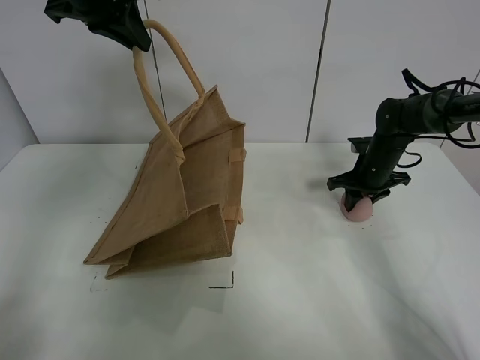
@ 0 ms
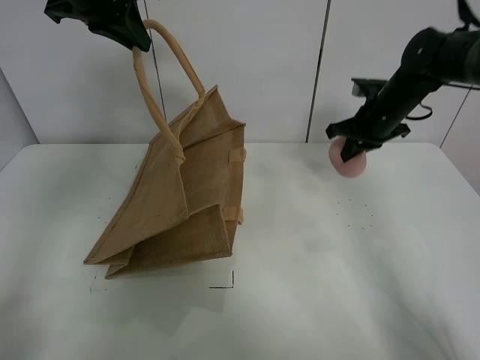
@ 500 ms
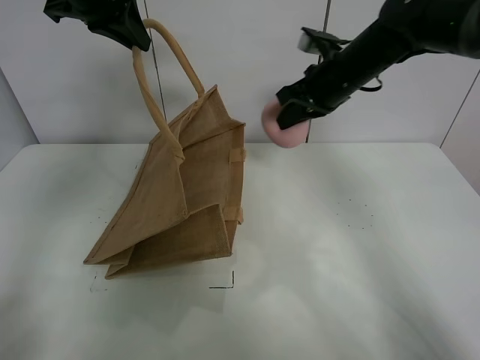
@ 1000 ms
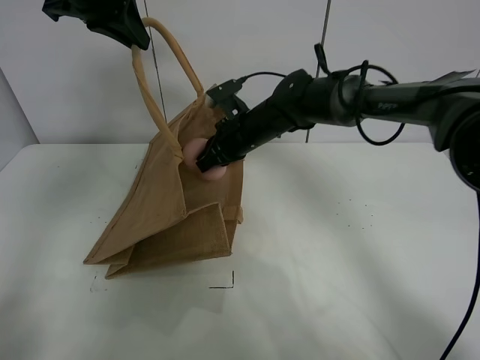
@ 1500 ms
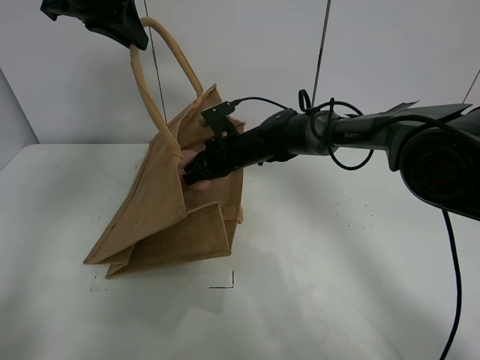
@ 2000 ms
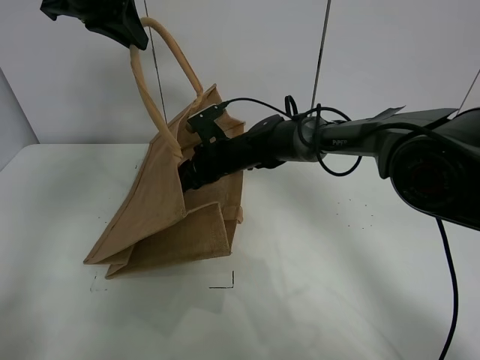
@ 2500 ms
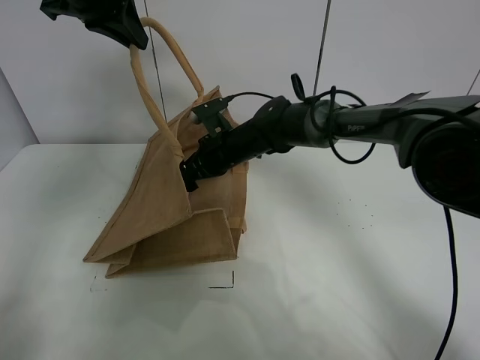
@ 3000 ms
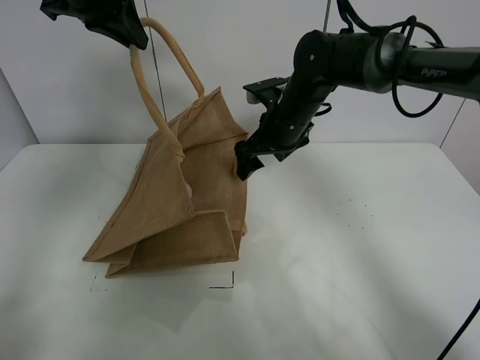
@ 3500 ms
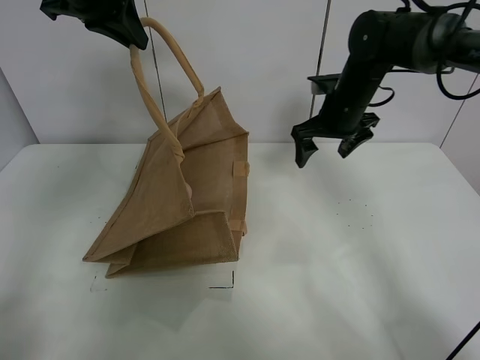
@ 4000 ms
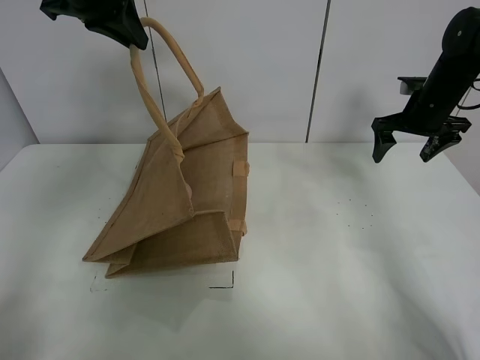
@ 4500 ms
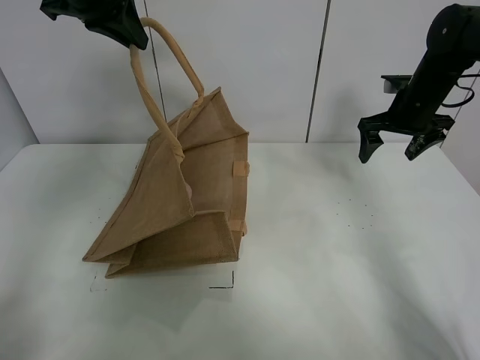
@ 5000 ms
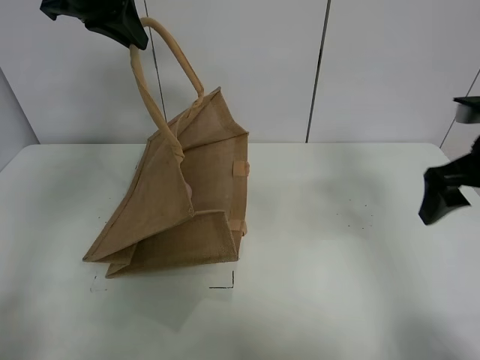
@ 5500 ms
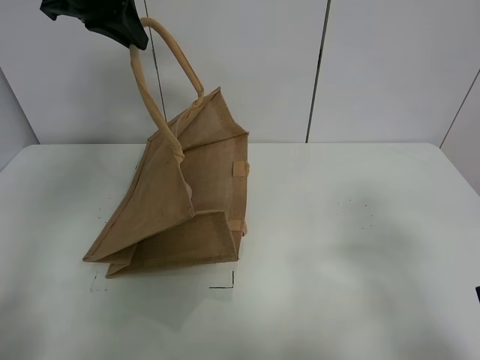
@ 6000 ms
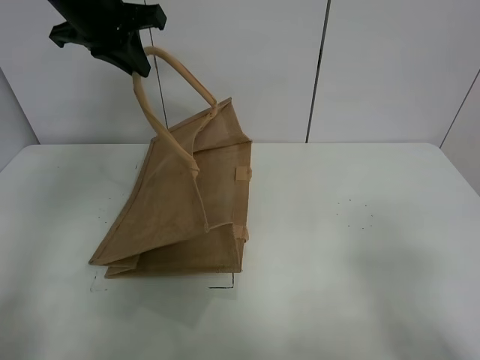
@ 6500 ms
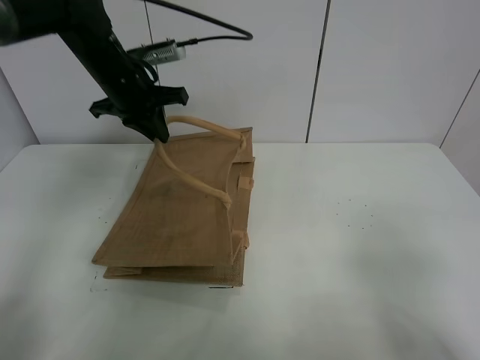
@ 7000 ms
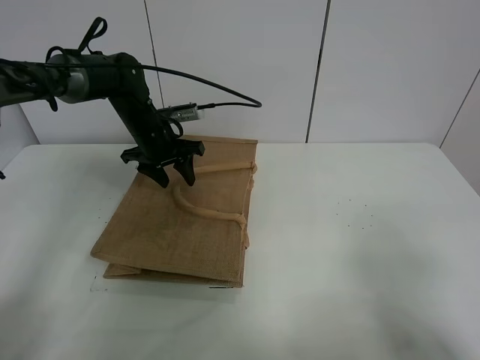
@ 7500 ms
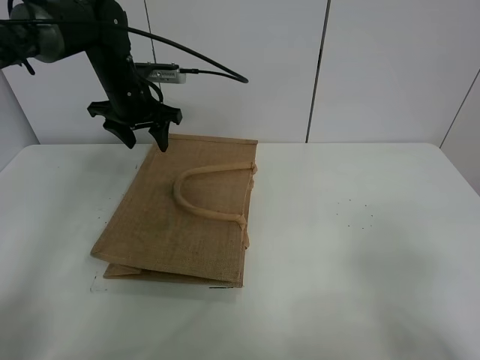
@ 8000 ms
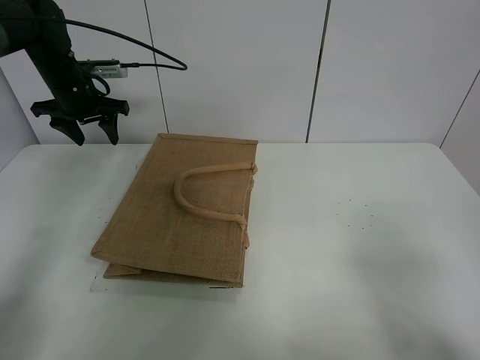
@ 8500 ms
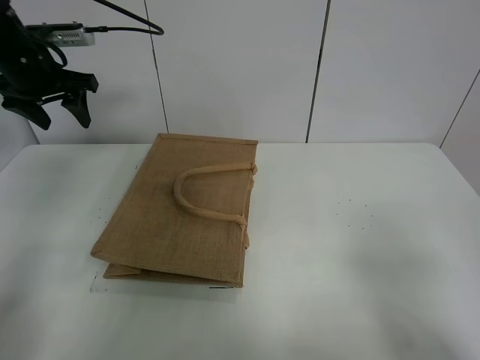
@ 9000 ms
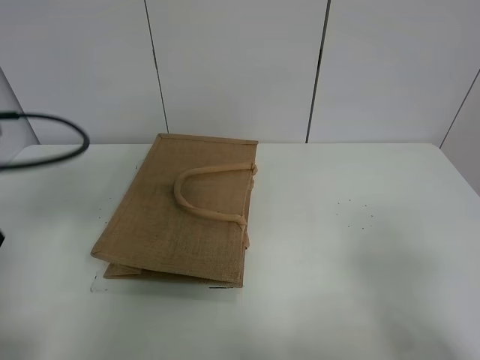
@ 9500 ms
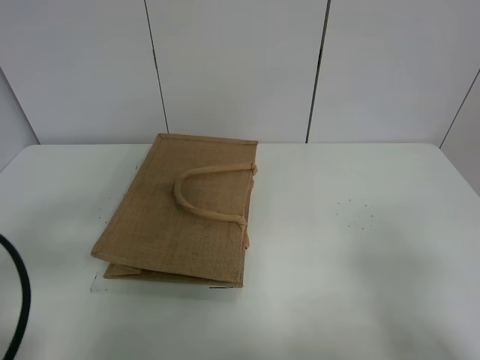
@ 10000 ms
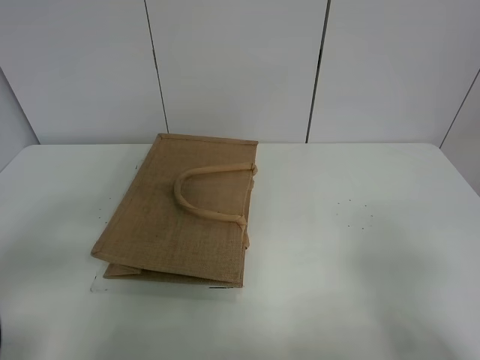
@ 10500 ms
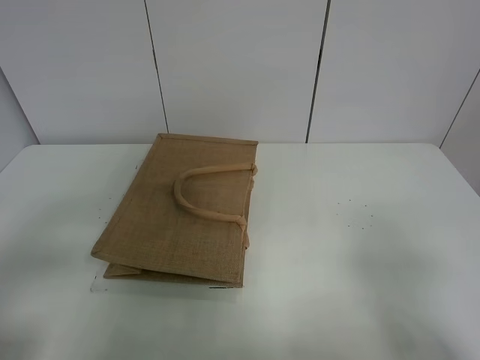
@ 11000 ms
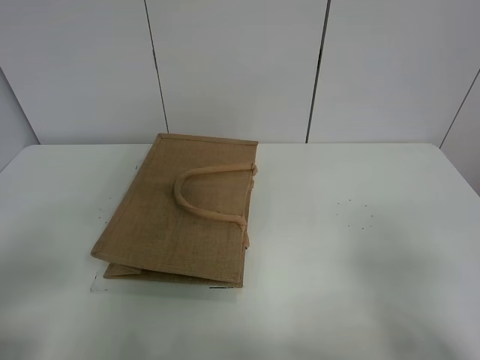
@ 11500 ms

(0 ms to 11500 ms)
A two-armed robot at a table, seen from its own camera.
Task of the whole recording: open the brown linen bag and put the peach in the bag.
Step, 500 ms - 3500 ms: Place the peach in the handbag with right gripper.
Step, 4000 ms - 8000 ms: Put down the handbag with left grippe.
0 ms - 2000 ms: The right gripper is displaced to the left by some 25 cm.
2000 ms - 4000 ms: The right gripper shifts approximately 20 cm to the right and upward, and opens its fingers.
4000 ms - 6000 ms: The right gripper heads backward, covering approximately 35 cm.
6000 ms - 7500 ms: The right gripper moves backward, roughly 5 cm. Meanwhile the left gripper goes roughly 25 cm downward, and opens its fingers.
7500 ms - 9500 ms: The left gripper travels backward, to the left and upward by about 35 cm.
9500 ms - 11500 ms: The left gripper heads backward, covering some 20 cm.

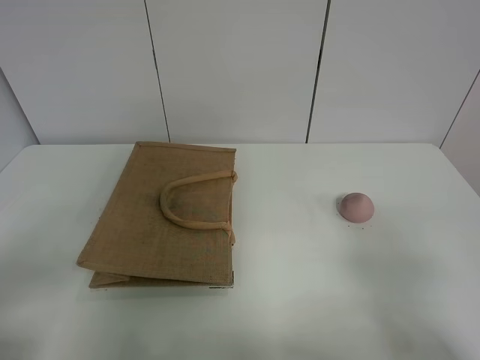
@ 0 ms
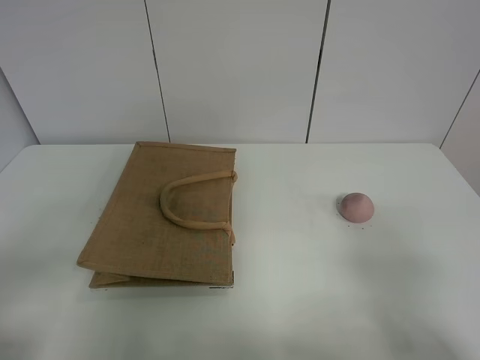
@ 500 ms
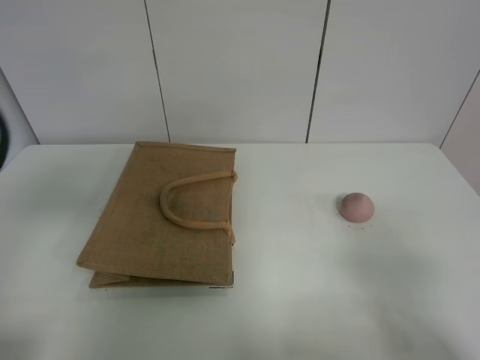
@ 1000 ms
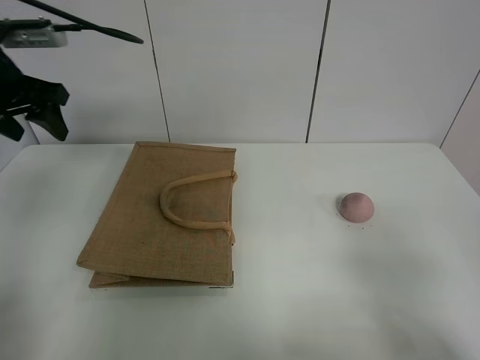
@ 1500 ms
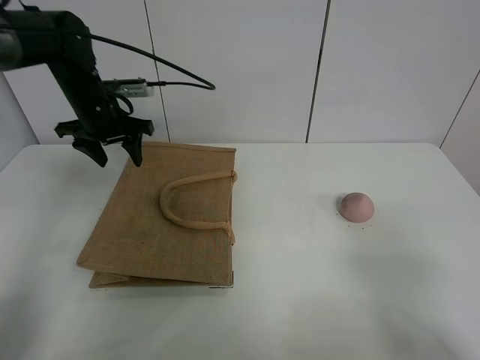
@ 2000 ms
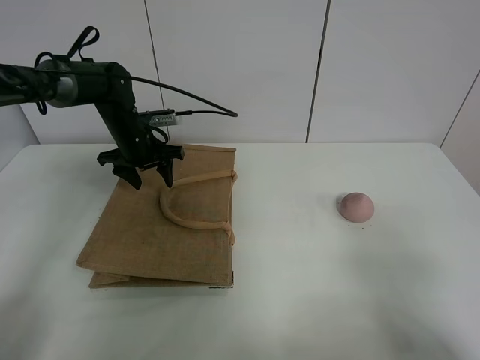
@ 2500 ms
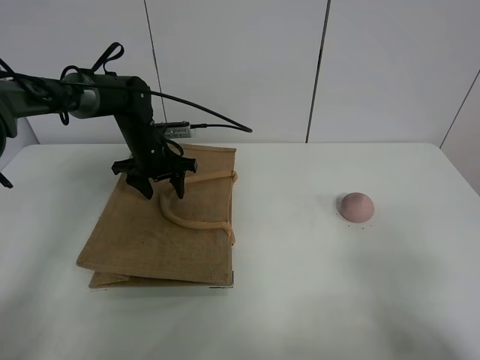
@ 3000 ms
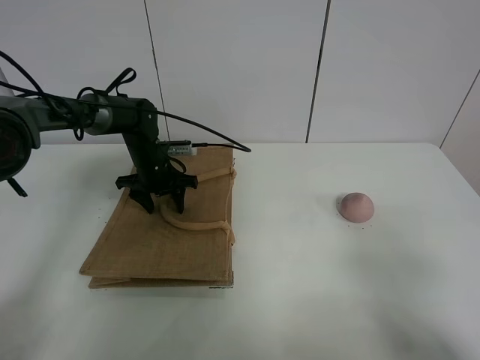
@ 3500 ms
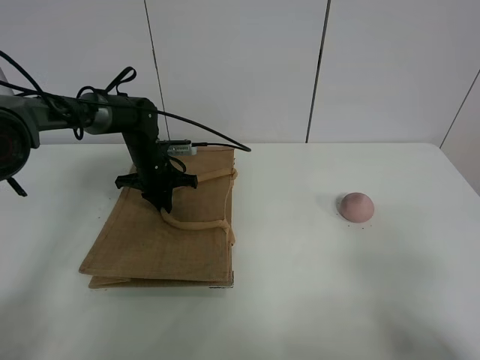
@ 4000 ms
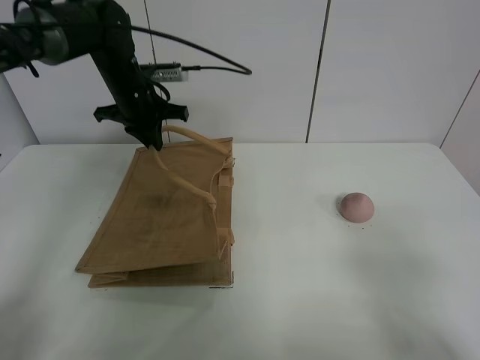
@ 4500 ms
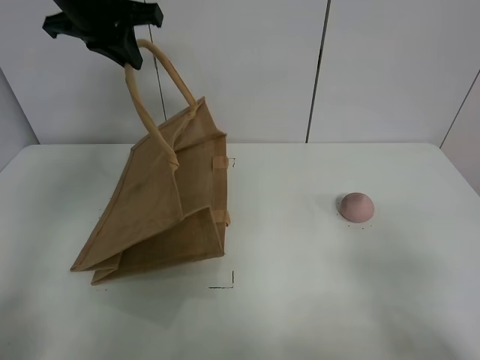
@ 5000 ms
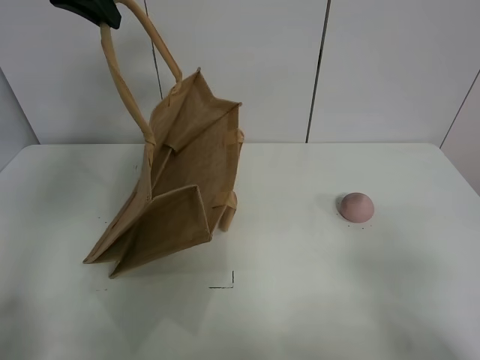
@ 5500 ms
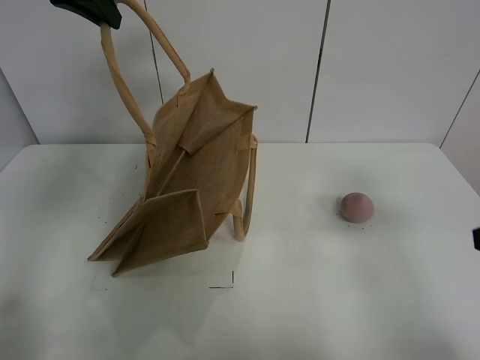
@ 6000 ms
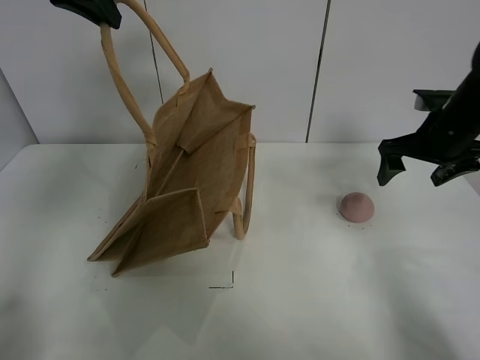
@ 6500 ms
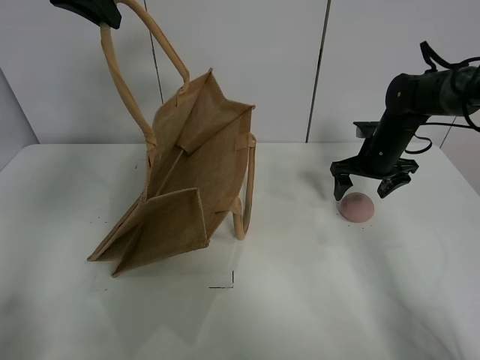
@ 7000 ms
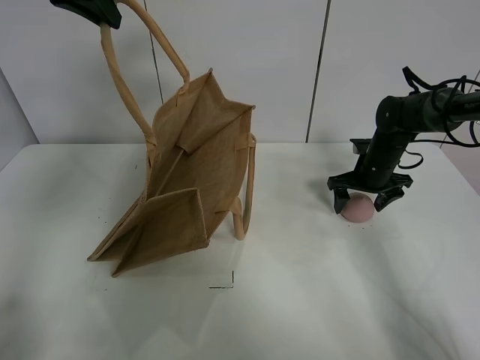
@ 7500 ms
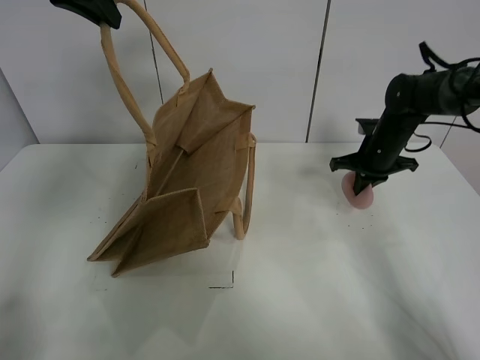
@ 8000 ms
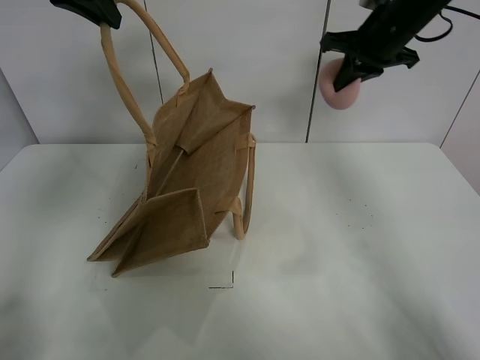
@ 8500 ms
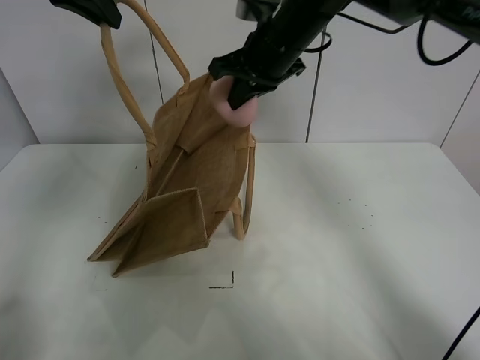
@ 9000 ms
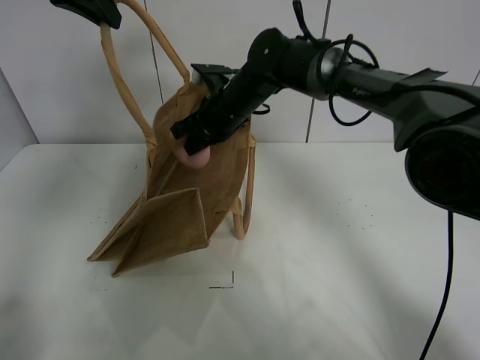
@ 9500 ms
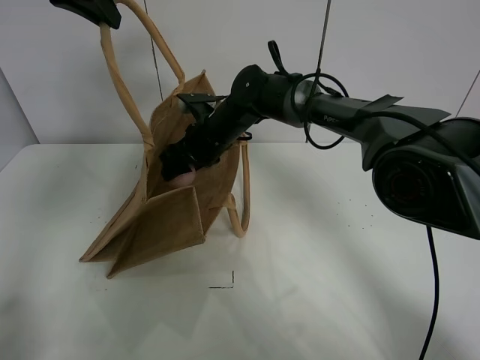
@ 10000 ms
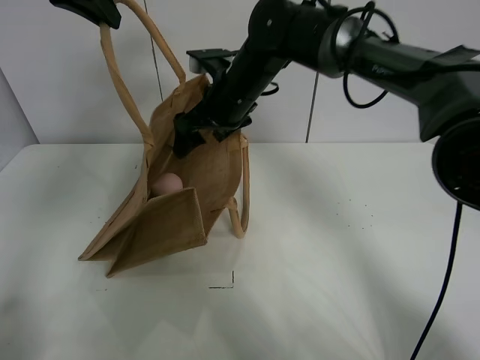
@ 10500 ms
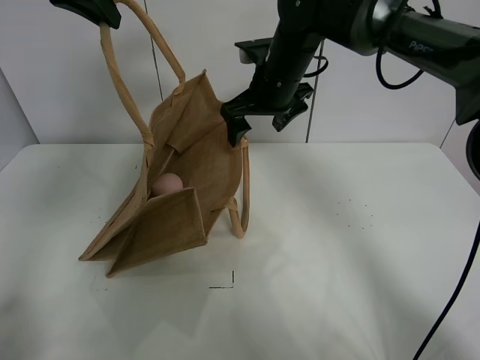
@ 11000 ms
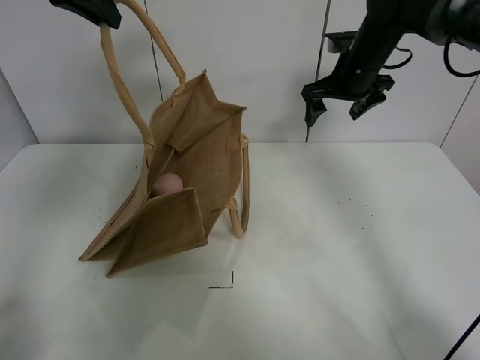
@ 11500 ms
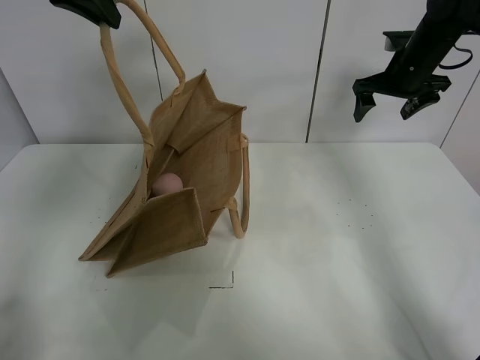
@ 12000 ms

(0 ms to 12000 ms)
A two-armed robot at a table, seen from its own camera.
Task of the whole recording: open the brown linen bag and put the peach in the bag.
Step, 0 ms - 5000 ms: Lift the handbag with left gripper.
Step, 5500 ms - 7500 ms: Grasp the peach with right gripper.
Step, 8000 ms - 11000 ms: Place the peach in the handbag with right gripper.
0 ms - 2000 ms: The left gripper shifts about 40 cm forward.
2000 ms - 4000 ms: The left gripper shifts some 15 cm downward and to the right, and closes up.
4000 ms - 6000 ms: The right gripper heads forward, covering some 10 cm. The left gripper heads upward, covering about 35 cm.
6000 ms - 8000 ms: The right gripper goes roughly 35 cm forward and downward, and closes its fingers.
8000 ms - 10000 ms: The right gripper heads to the left, covering about 30 cm, and opens.
10000 ms - 12000 ms: The right gripper shifts approximately 30 cm to the right.

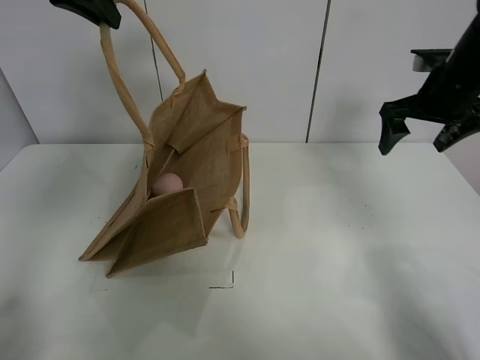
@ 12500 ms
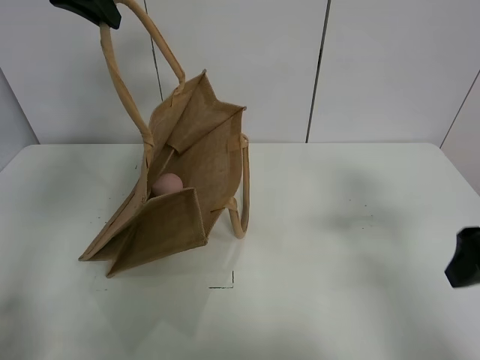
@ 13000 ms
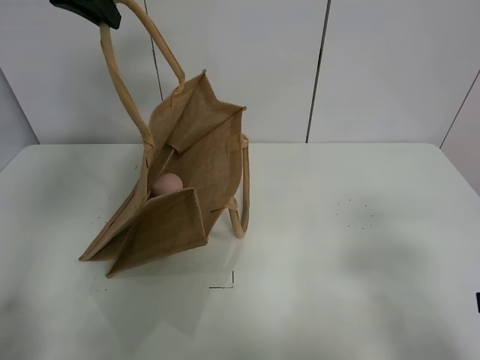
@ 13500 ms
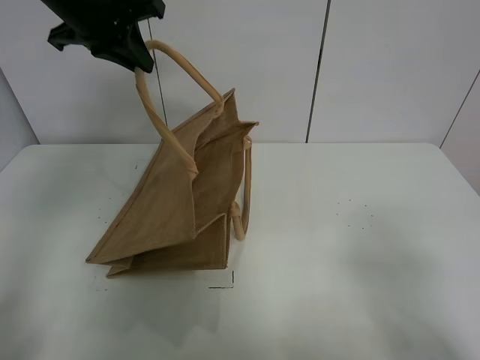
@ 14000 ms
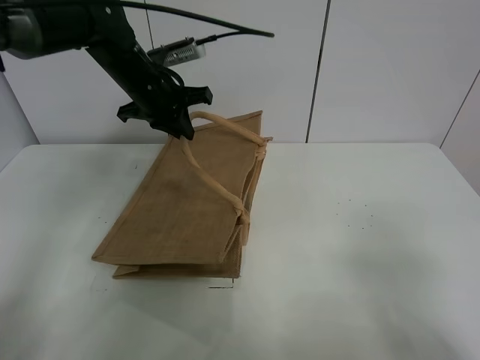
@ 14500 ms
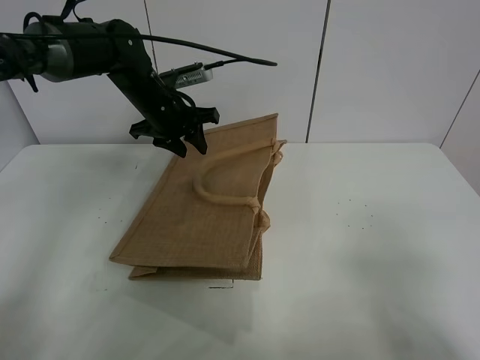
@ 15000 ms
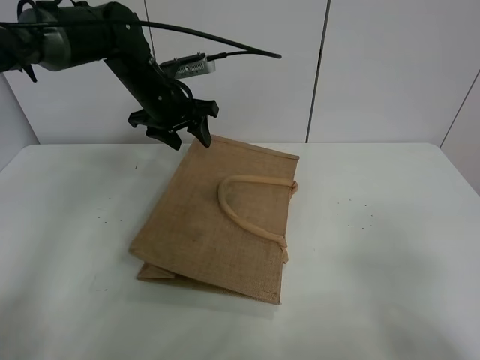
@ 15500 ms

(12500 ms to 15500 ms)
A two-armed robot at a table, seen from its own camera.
Task of the whole recording: open the brown linen bag and put the peach in the bag.
12500 ms - 14000 ms: The left gripper shifts roughly 5 cm downward, while the right gripper shifts about 35 cm backward.
14000 ms - 15500 ms: The left gripper moves downward and forward, approximately 15 cm, and opens.
